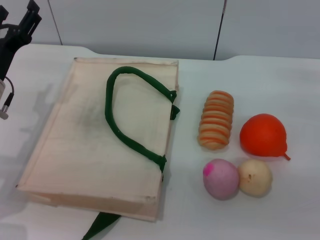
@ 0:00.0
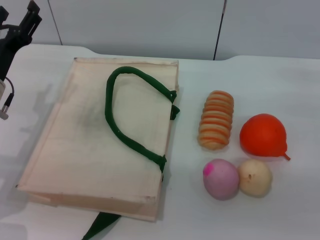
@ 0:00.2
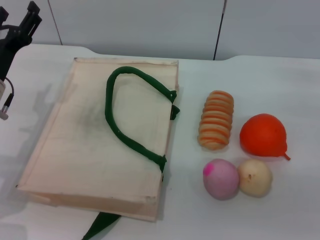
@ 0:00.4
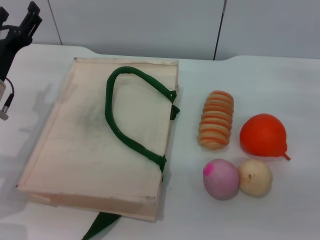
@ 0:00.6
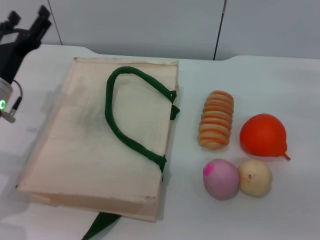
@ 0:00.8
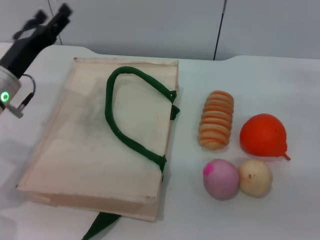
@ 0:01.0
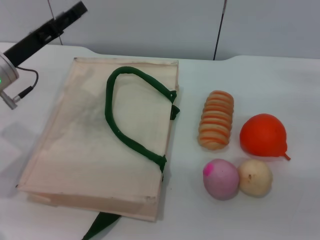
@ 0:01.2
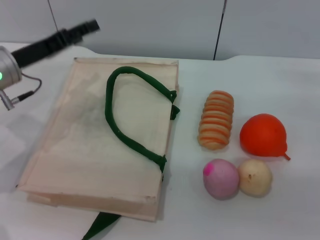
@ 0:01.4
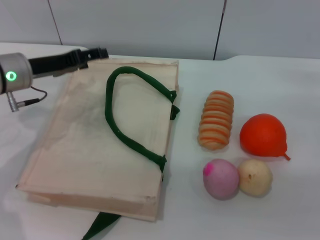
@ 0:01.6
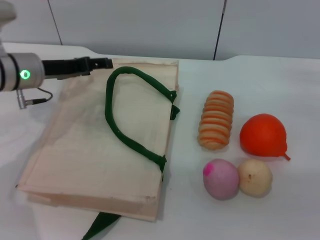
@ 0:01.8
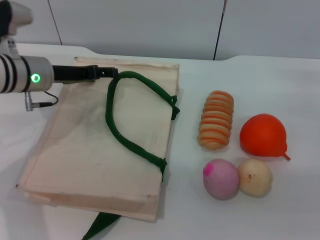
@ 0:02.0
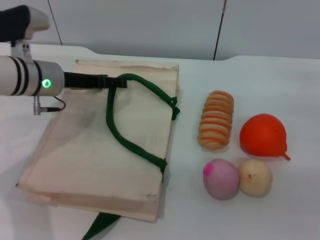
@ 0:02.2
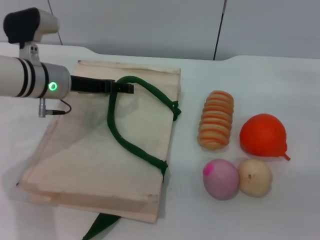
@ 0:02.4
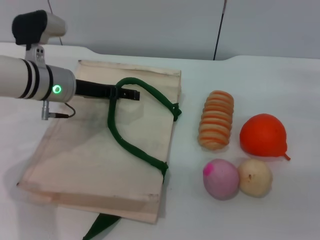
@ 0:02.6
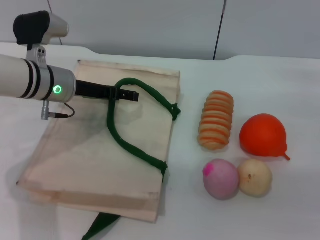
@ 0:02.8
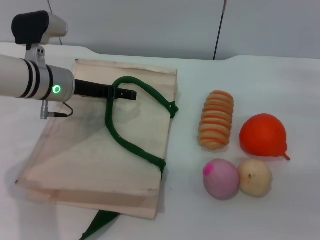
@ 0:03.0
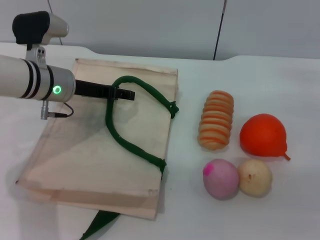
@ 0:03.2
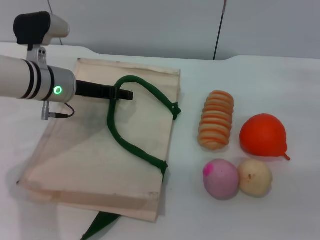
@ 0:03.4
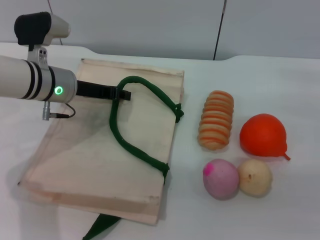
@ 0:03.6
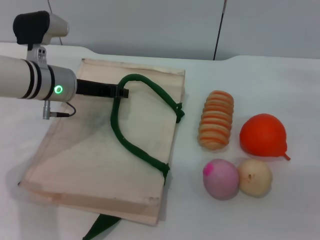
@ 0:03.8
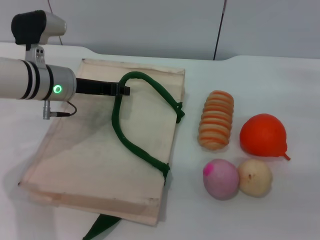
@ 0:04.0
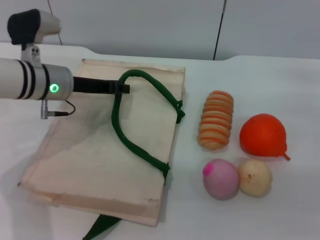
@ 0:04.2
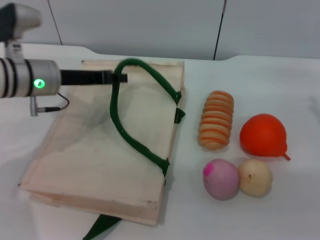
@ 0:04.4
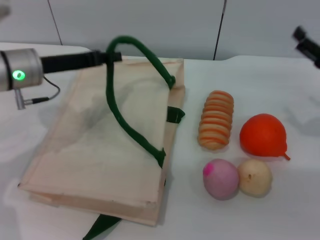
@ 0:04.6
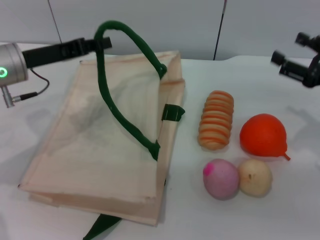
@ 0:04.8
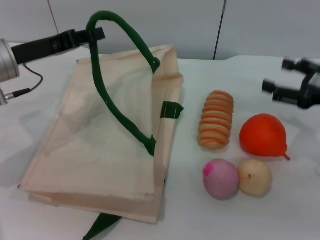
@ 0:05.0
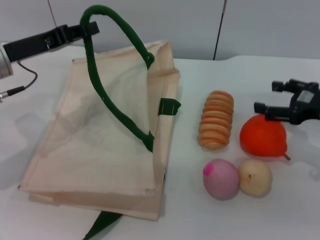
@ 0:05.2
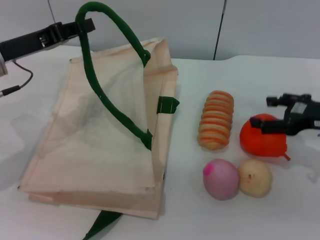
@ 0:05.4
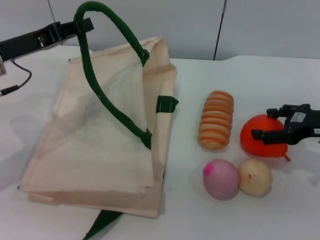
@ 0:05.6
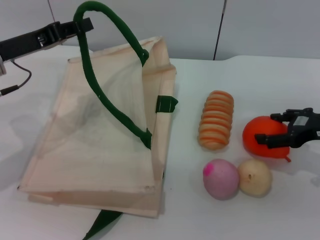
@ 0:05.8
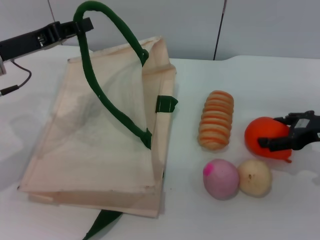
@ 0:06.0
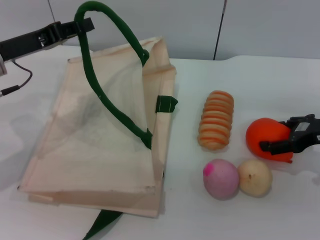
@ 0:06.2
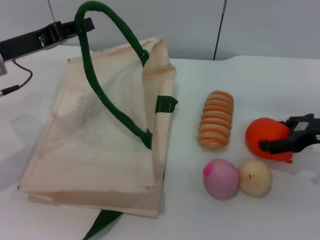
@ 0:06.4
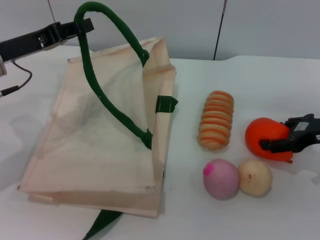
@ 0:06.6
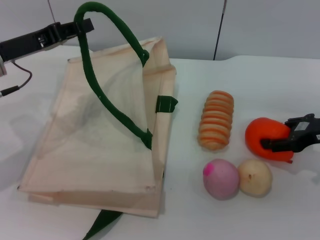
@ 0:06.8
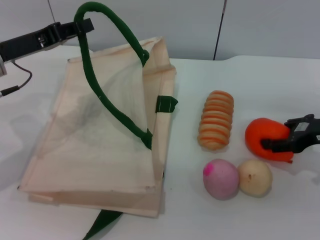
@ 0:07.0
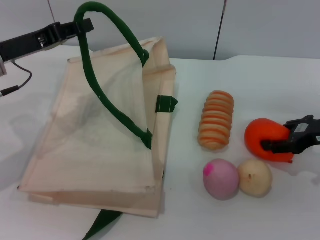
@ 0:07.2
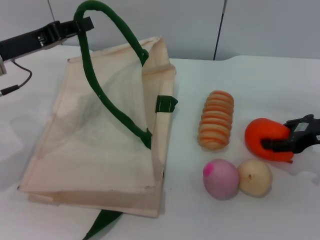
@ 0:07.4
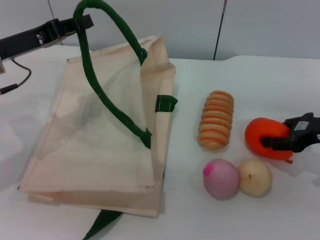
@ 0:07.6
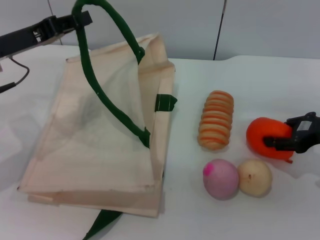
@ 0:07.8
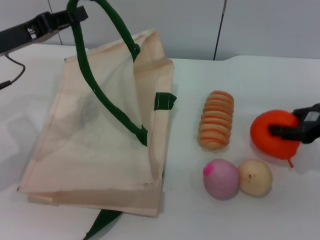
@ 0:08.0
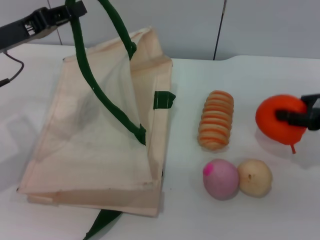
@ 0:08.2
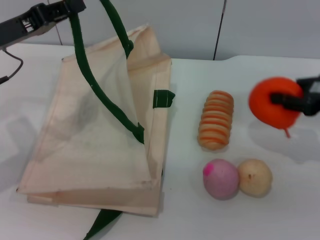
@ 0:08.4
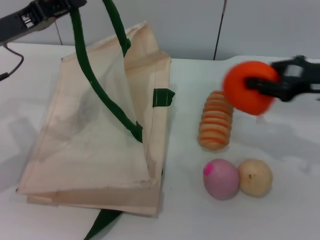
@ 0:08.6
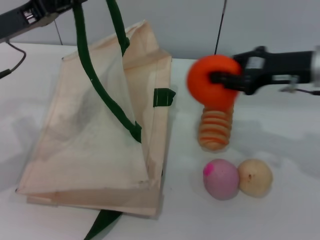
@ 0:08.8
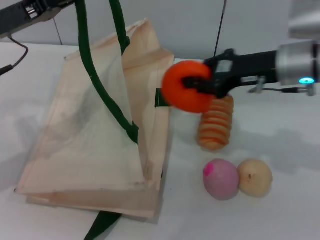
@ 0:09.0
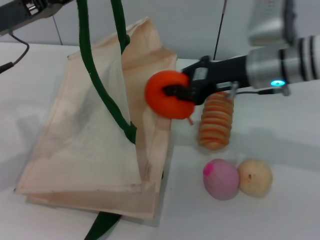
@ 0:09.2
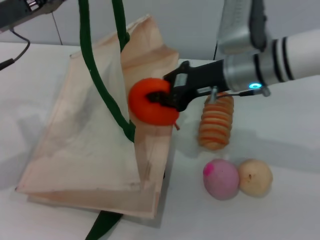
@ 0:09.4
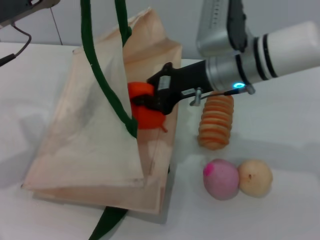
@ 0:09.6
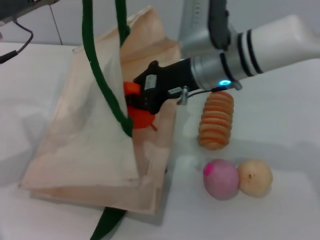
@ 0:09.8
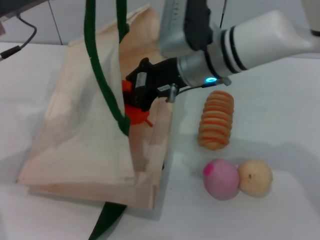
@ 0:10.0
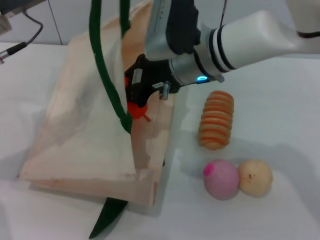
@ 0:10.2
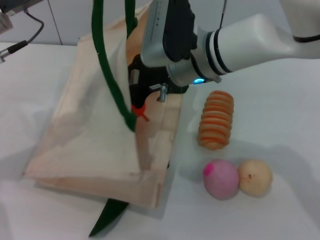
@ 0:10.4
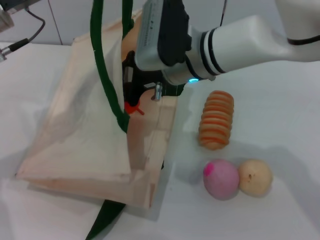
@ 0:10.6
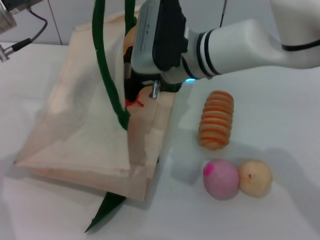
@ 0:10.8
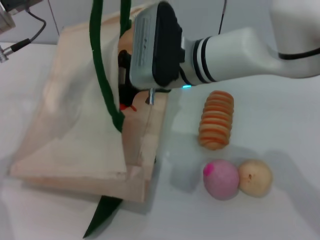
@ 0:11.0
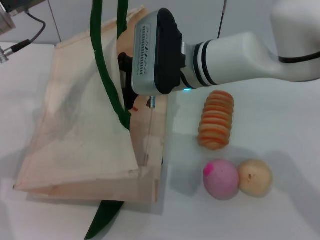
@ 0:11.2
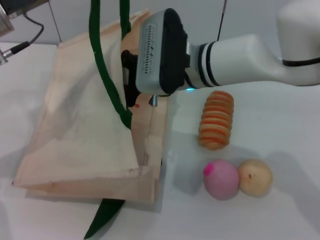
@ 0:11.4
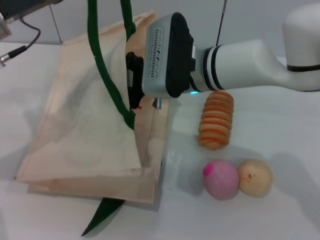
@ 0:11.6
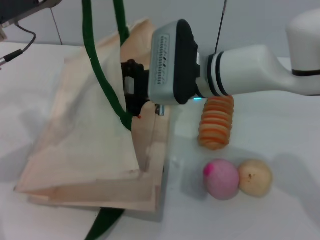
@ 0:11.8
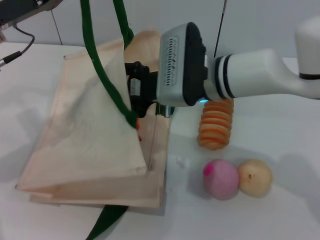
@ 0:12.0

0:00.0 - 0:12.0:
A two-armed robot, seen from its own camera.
Task of the whole recording: pick up the orange and peach from the table and place it in the white handbag.
Step, 0:00.0 - 0:04.4: Lift the woven bag with the left gripper to open it.
Step, 0:04.6 - 0:08.2: Pick up the orange with the right gripper.
0:00.0 - 0:01.6: The left gripper shifts by approximately 5 cm.
0:01.6 - 0:03.0: The left gripper heads to the right, covering roughly 5 cm.
0:03.0 - 0:04.4: The left gripper closes.
0:04.4 - 0:06.0: The left gripper shifts about 5 cm to the left.
0:06.0 - 0:07.6: The right gripper closes its fingers.
0:07.6 - 0:09.0: The right gripper shifts approximately 15 cm to the left and upward.
0:09.0 - 0:10.4: The right gripper goes roughly 15 cm to the left.
0:10.4 - 0:12.0: The right gripper opens its fingers.

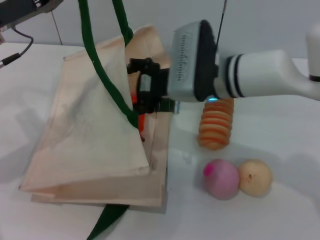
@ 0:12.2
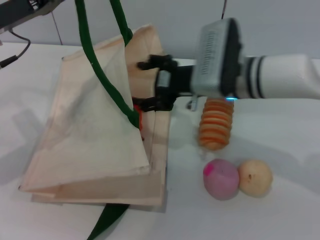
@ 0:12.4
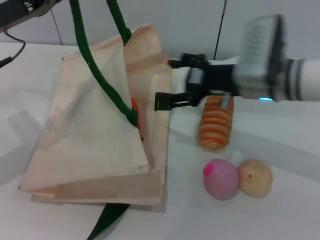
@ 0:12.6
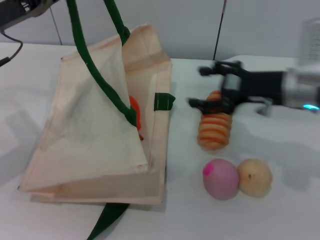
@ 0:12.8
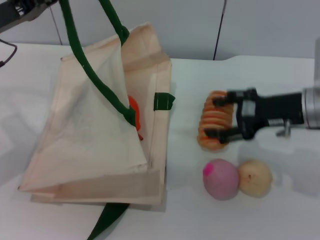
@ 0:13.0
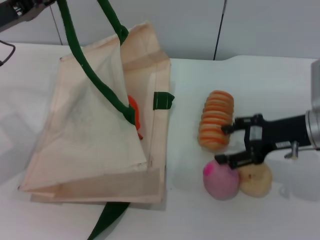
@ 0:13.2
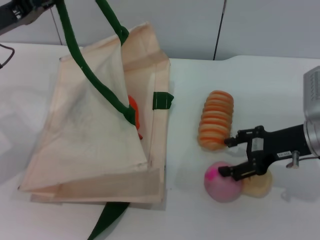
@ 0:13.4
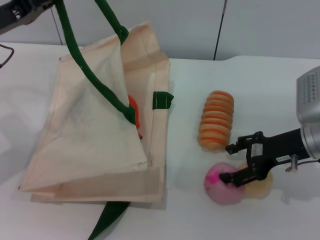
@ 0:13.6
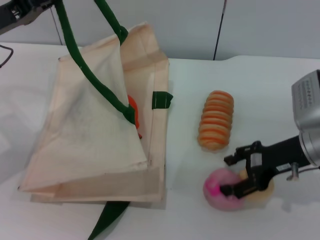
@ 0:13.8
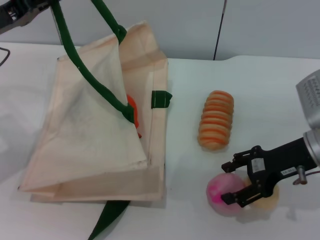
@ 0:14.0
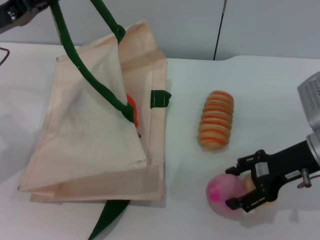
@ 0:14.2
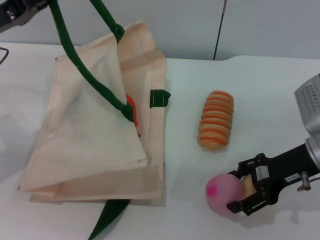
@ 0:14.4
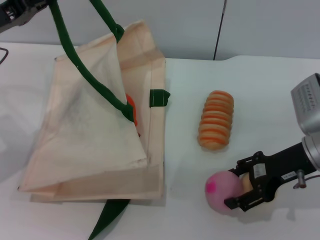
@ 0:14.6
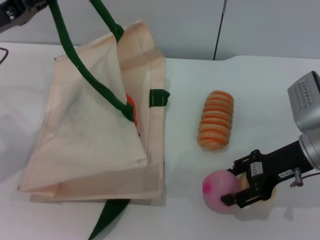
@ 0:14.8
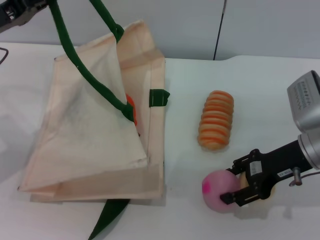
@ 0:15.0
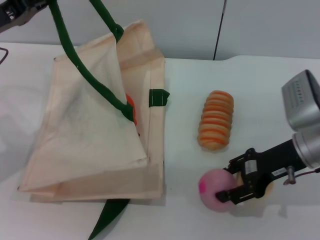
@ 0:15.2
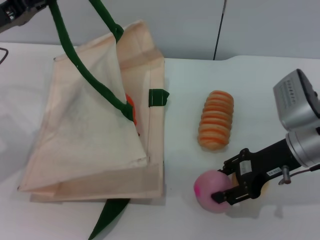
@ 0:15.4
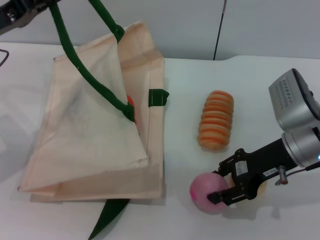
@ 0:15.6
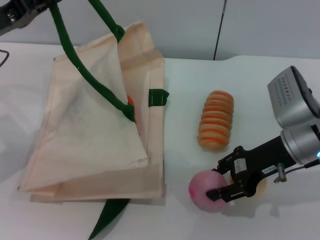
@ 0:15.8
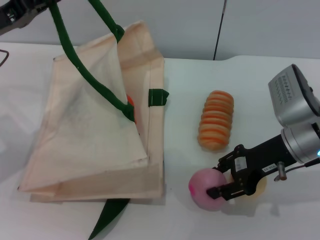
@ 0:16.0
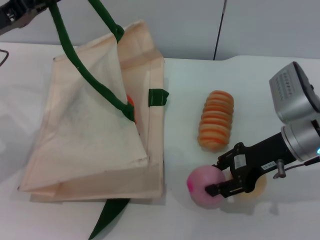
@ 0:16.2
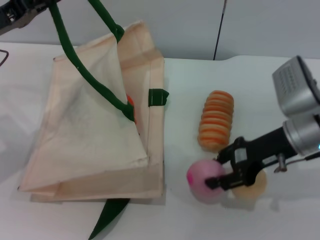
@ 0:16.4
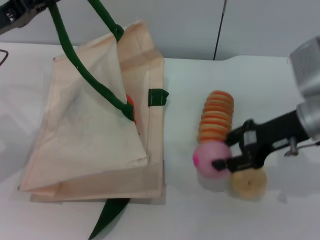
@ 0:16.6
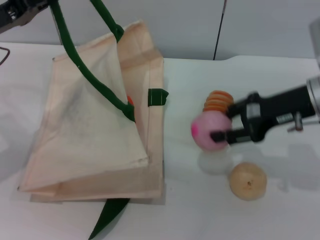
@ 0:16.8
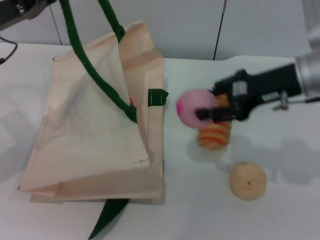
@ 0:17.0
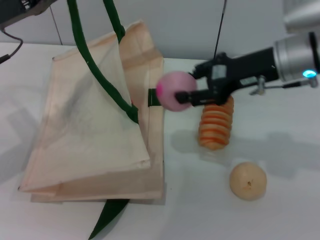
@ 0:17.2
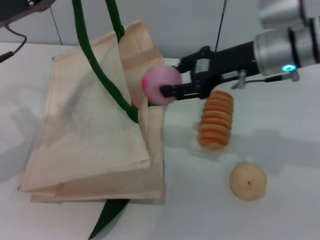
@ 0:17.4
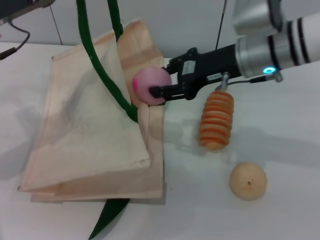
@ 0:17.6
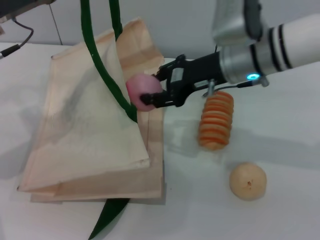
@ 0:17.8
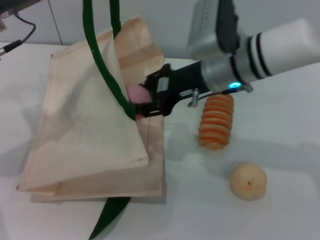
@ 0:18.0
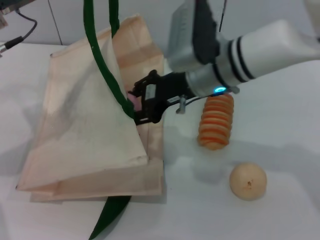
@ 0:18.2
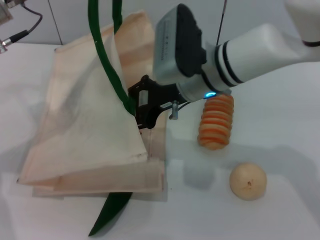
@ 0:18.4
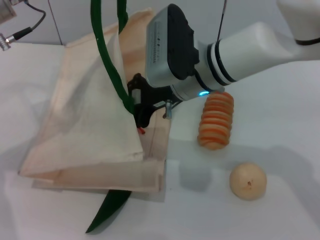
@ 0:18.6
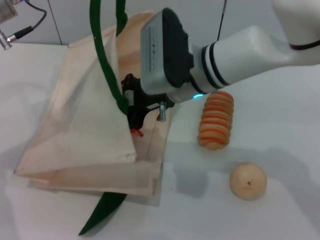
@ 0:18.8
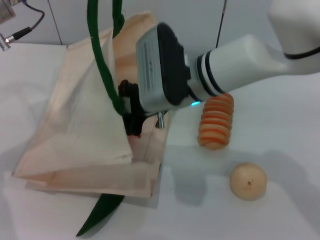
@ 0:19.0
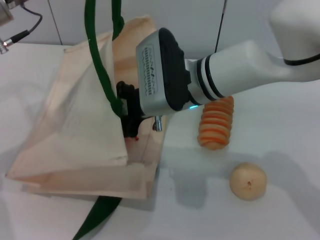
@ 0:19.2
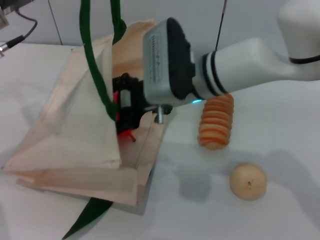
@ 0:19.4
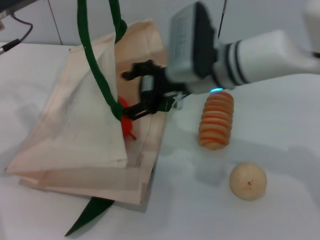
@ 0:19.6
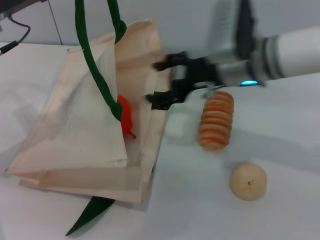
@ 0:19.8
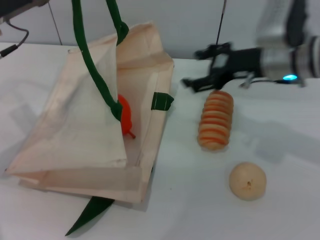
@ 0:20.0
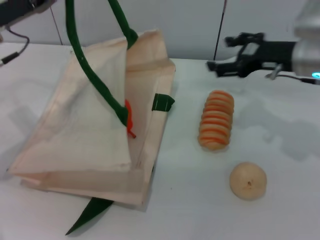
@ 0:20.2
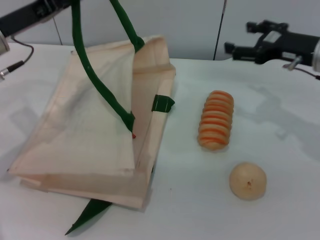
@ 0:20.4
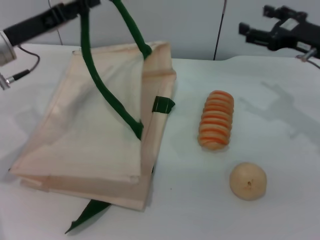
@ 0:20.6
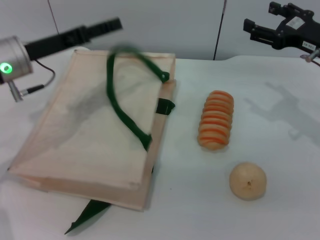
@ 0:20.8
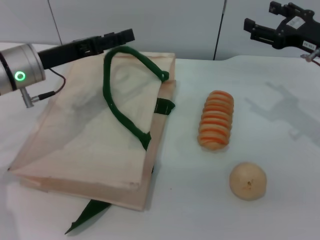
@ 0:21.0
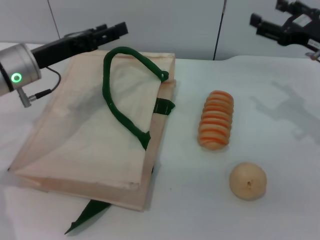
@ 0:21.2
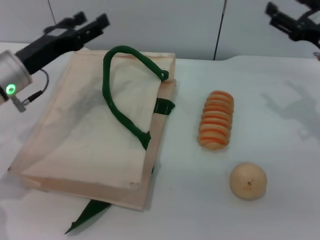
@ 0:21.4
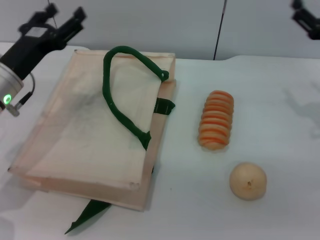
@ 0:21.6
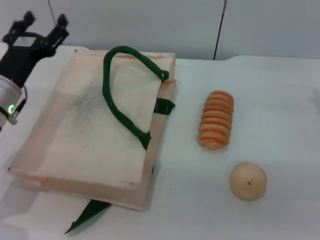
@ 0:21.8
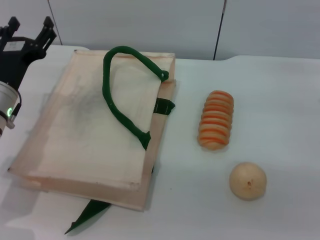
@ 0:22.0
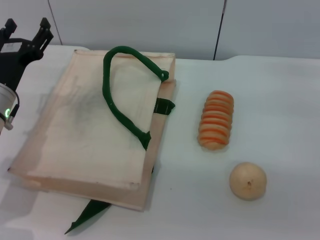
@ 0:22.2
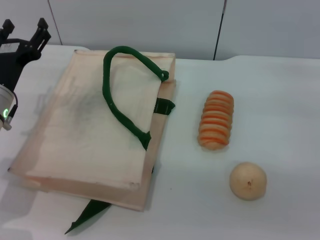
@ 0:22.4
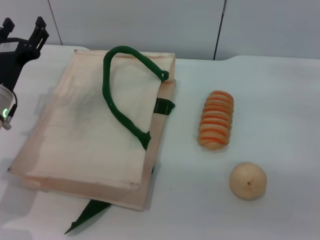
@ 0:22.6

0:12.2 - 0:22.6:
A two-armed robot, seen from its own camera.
Task of the whole recording: pick up the orange and peach from the table and place it in the white handbag.
Step, 0:12.8 - 0:16.6: Pick up the egg yolk pastry with the right gripper.
Step, 0:16.8 - 0:19.8: Place the egg yolk pastry into the woven bag with the right gripper.
Step, 0:20.0 - 0:21.0: Lower the woven bag with the left gripper to close it.
0:12.2 - 0:13.6: The right gripper goes some 15 cm to the right.
0:13.6 - 0:16.6: The grippers move only a little.
0:16.6 - 0:18.2: The right gripper shifts some 15 cm to the left. Meanwhile the left gripper changes place by roughly 5 cm.
0:18.2 - 0:19.6: The grippers move only a little.
0:19.6 - 0:21.2: The right gripper moves to the right, some 20 cm. The left gripper travels downward by approximately 5 cm, and opens up.
0:21.2 - 0:22.6: The right gripper goes some 10 cm downward and backward. Meanwhile the left gripper heads downward, covering about 5 cm.
